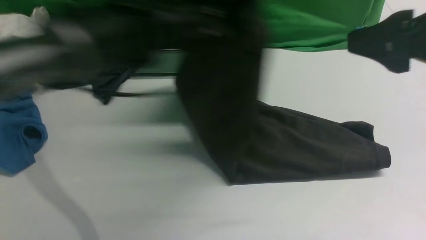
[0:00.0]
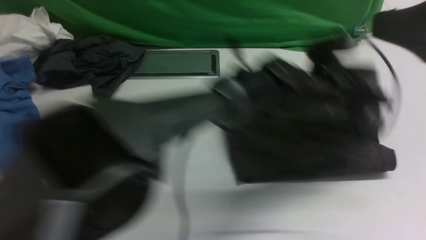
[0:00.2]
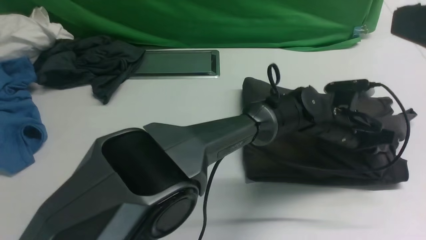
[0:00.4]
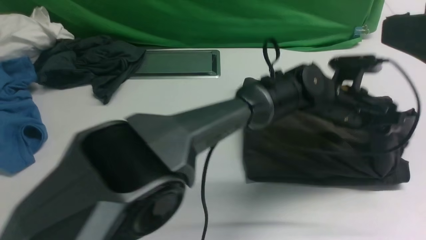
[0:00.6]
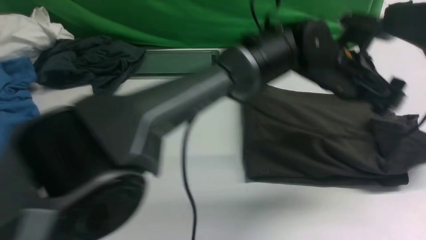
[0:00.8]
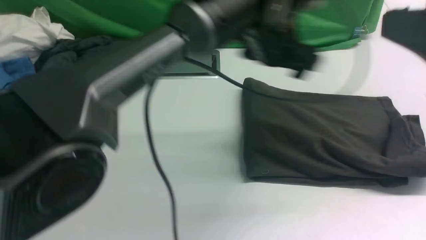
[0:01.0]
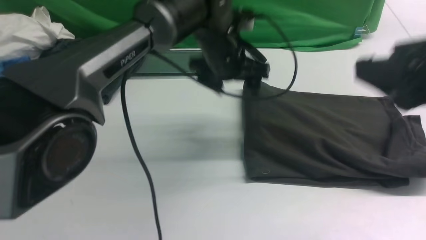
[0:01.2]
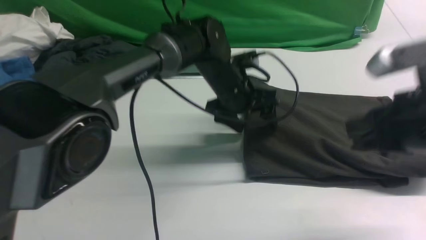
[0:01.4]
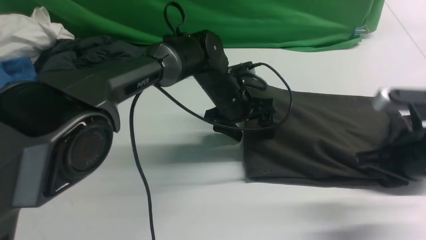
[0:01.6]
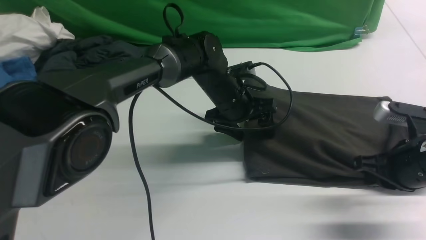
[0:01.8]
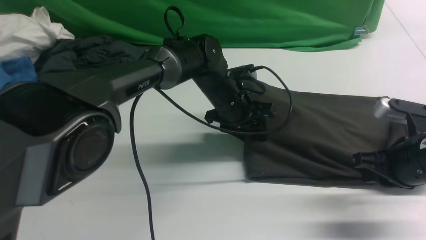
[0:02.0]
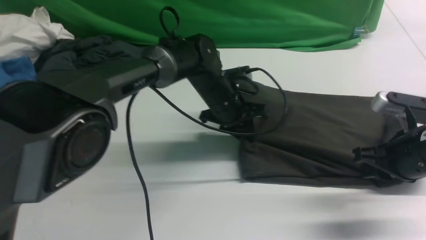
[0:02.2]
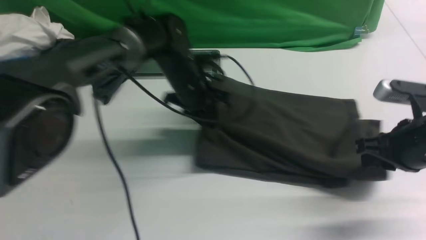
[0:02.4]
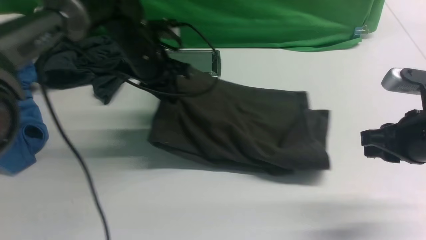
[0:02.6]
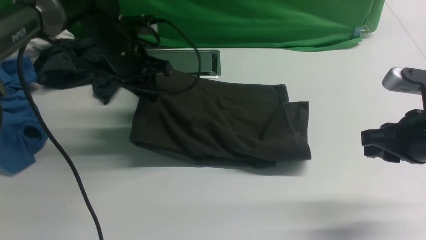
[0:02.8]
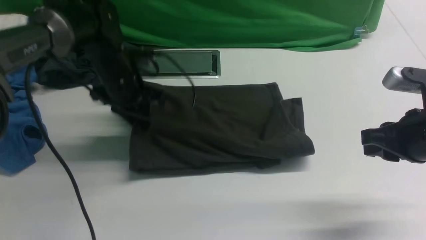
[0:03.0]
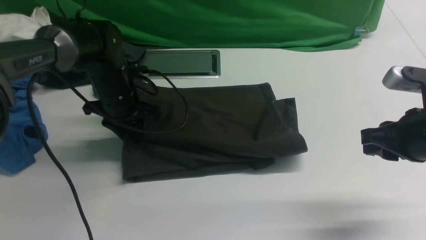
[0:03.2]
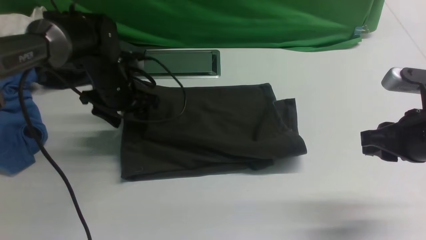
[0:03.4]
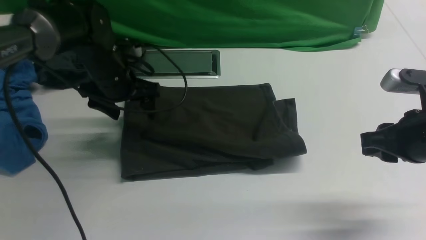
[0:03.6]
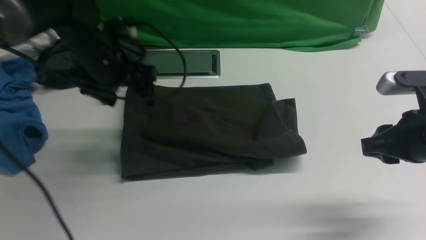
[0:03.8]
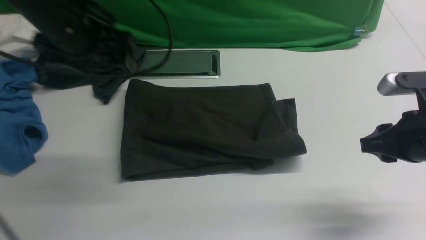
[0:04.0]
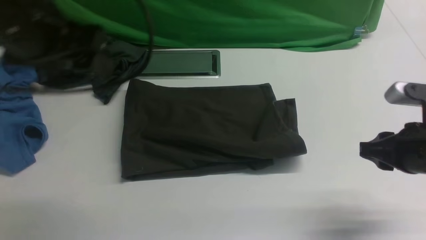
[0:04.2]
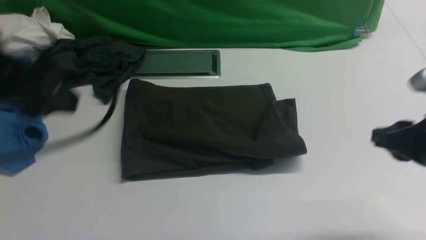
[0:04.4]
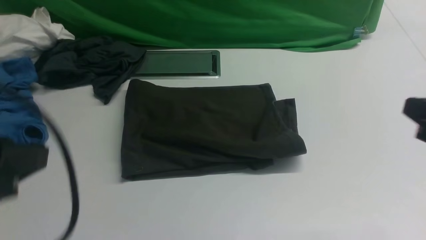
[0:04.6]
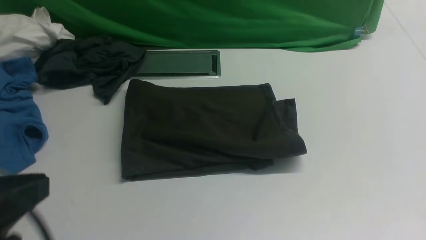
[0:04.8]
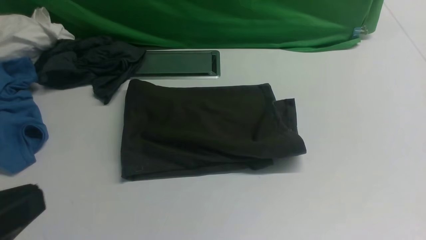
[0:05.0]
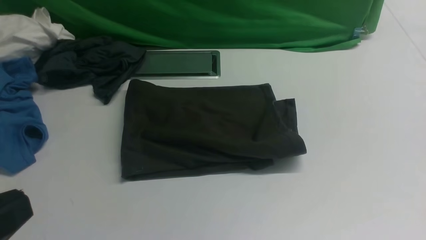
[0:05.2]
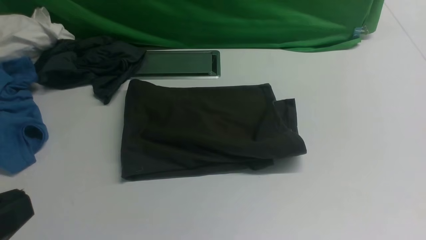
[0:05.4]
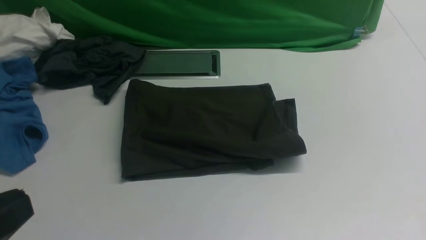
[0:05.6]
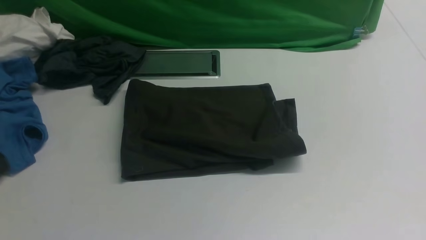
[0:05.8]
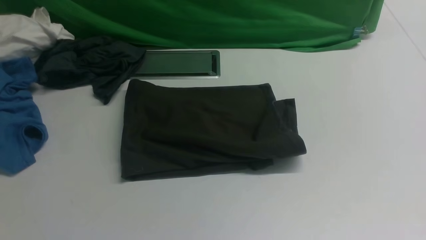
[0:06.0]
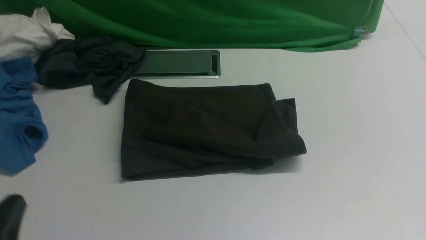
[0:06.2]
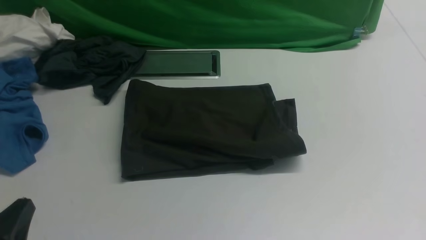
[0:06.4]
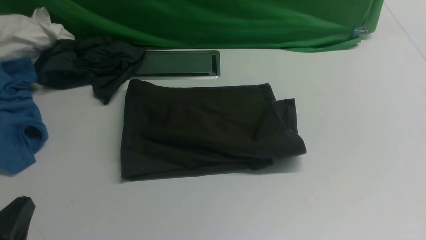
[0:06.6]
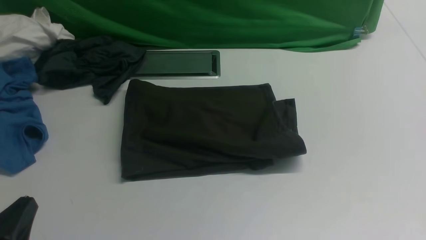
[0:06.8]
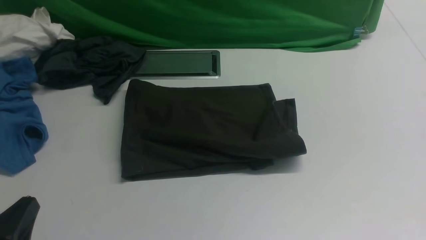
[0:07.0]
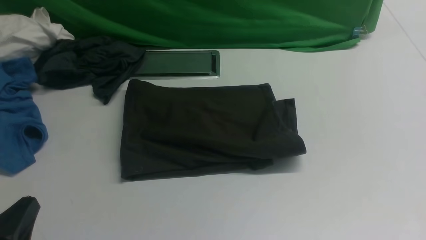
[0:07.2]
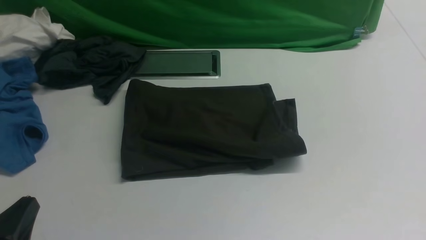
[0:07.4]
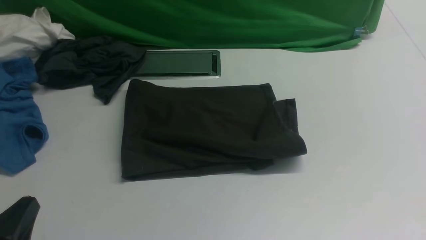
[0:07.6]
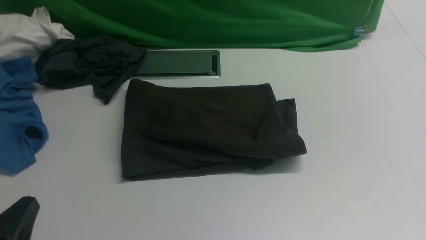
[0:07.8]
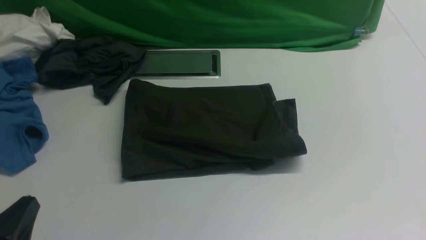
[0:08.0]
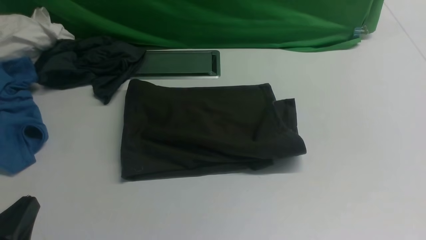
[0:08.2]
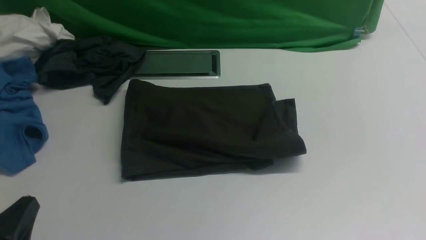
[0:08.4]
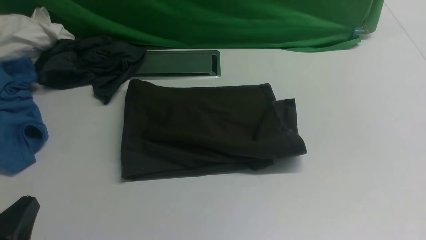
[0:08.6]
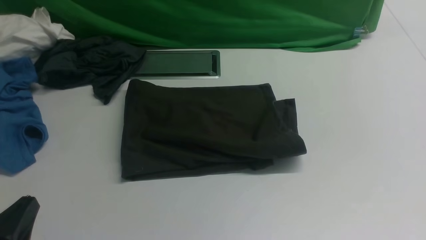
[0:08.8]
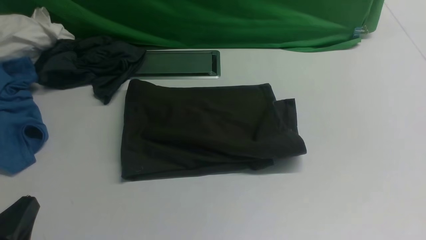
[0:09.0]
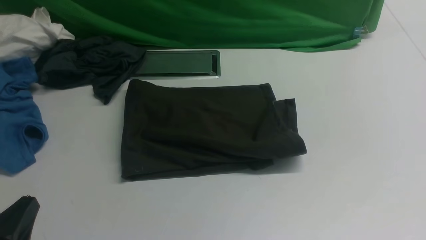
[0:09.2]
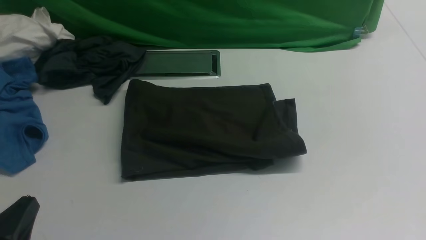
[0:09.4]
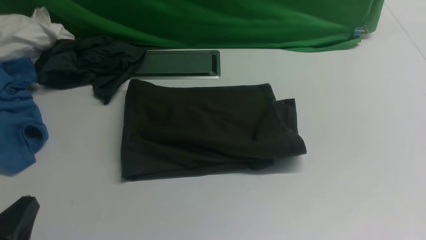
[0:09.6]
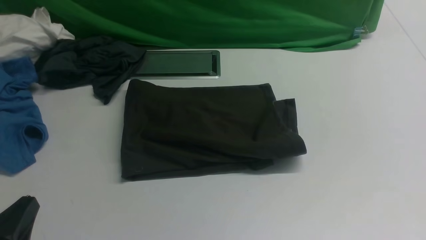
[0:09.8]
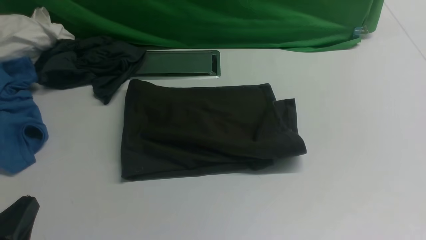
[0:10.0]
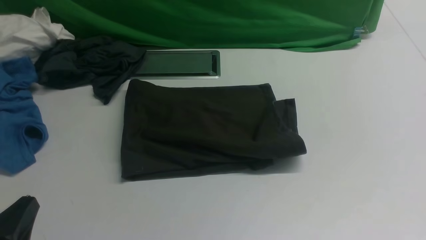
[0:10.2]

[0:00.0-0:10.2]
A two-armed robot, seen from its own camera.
Step, 0:00.0 to 0:00.8: Drag the left edge of the fabric to the left with your left arm and fold it to the right edge.
0:00.0 to 0:01.4: The two grippers go approximately 10 cm downward. The right gripper closes. The left gripper travels to the right and back again, some 15 cm each way, and opens up.
0:01.4 to 0:03.0: The left gripper is displaced to the left by approximately 20 cm, and closes its fingers.
0:03.0 to 0:04.4: The left gripper shifts roughly 30 cm backward and upward, and opens up.
0:04.4 to 0:05.8: The right gripper goes some 20 cm backward and upward. The left gripper is displaced backward and downward by approximately 15 cm, and closes.
0:05.8 to 0:07.2: The left gripper moves downward, some 15 cm.

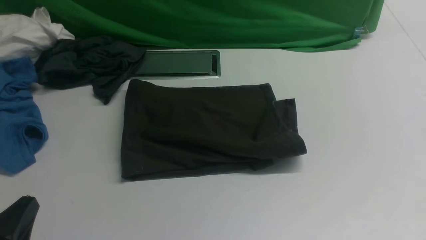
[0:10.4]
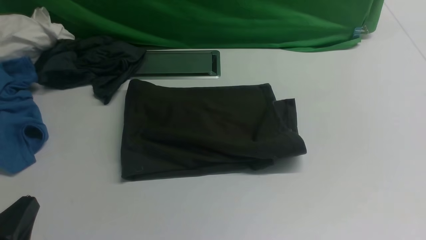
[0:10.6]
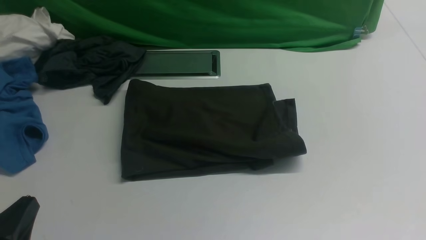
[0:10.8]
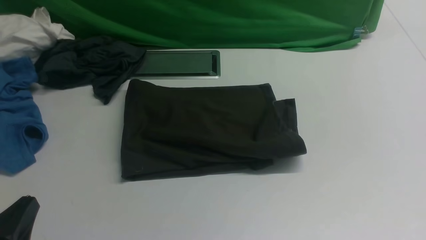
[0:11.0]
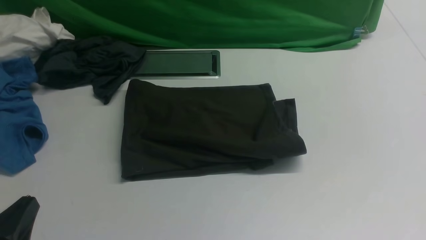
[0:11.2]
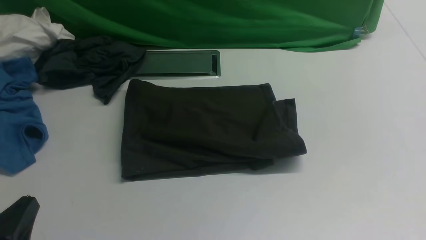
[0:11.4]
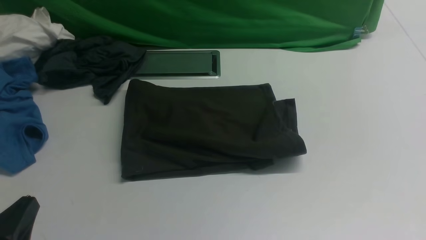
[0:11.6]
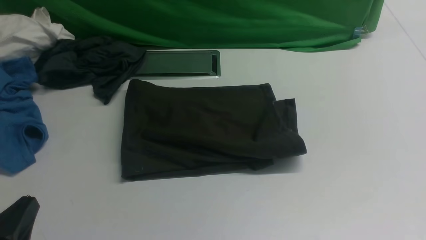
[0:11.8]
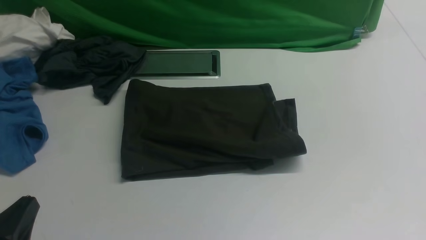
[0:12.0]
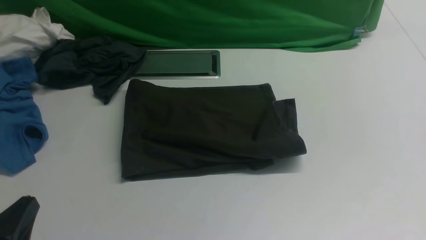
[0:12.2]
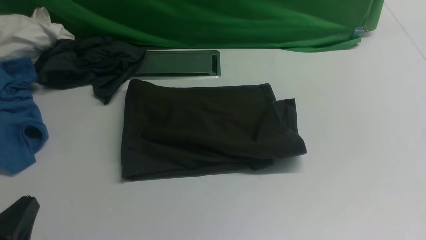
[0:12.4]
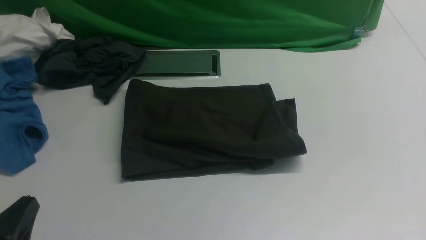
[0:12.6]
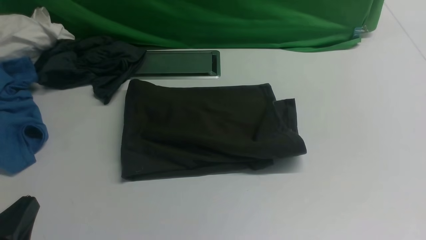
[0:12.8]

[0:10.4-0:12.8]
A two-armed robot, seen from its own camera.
0:10.4 to 0:12.8: The two grippers keep their place.

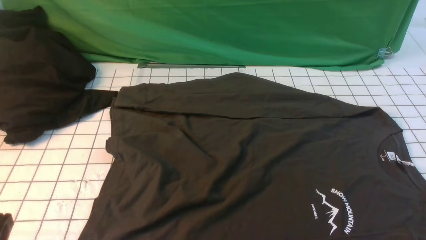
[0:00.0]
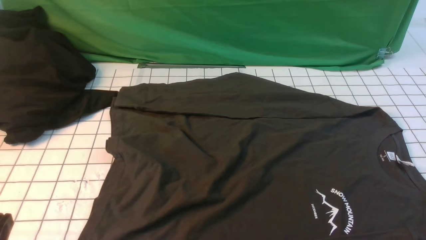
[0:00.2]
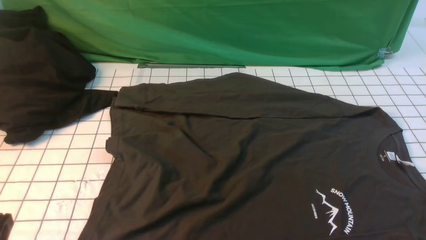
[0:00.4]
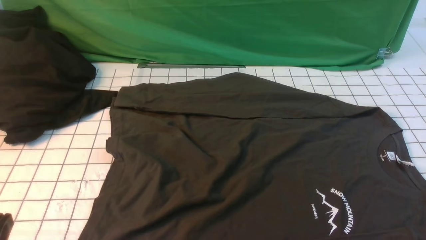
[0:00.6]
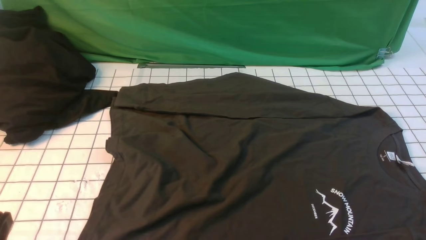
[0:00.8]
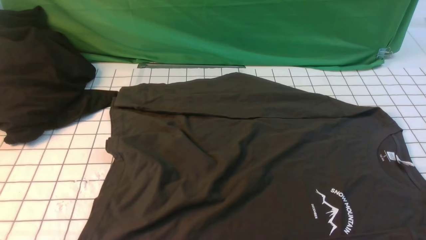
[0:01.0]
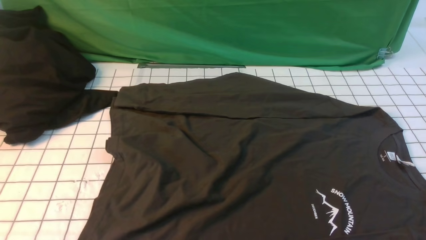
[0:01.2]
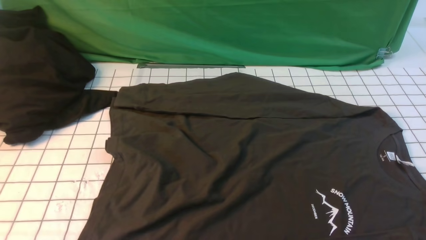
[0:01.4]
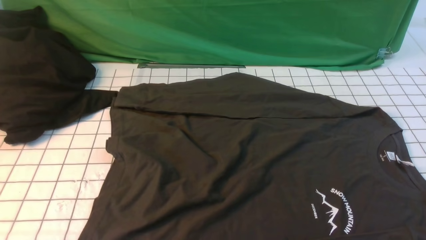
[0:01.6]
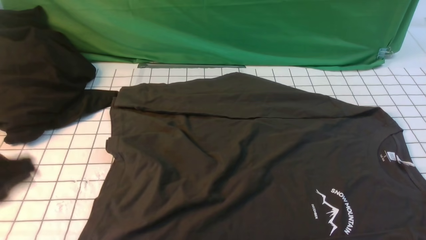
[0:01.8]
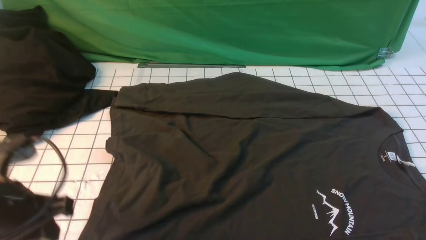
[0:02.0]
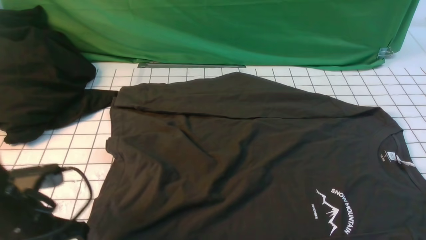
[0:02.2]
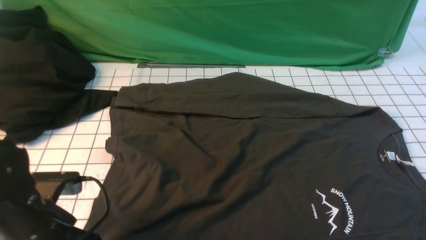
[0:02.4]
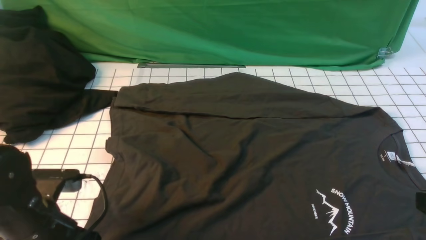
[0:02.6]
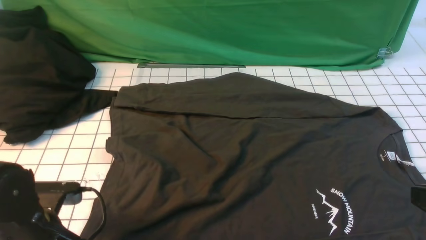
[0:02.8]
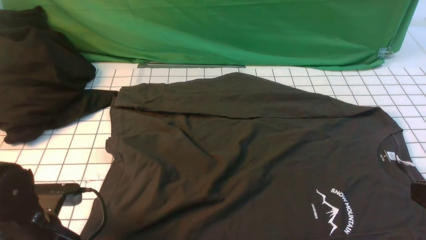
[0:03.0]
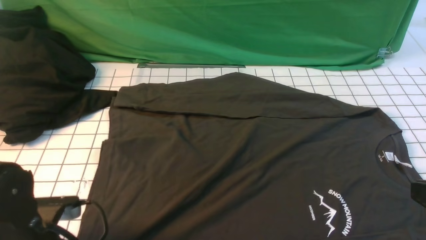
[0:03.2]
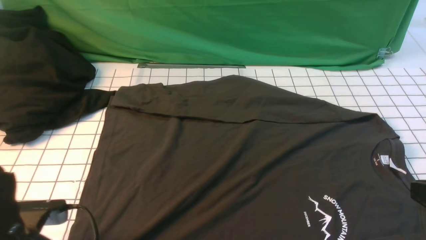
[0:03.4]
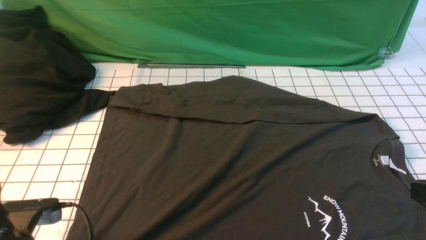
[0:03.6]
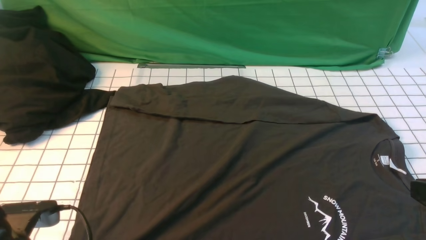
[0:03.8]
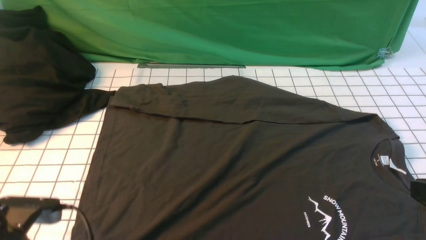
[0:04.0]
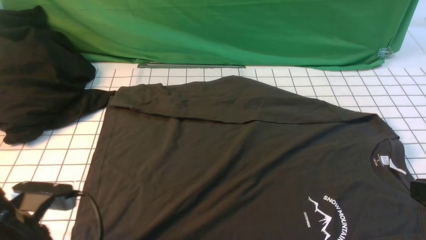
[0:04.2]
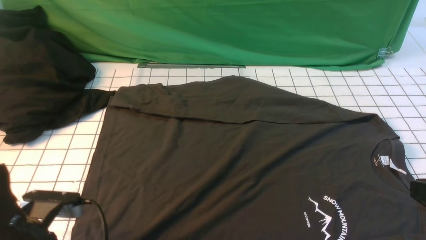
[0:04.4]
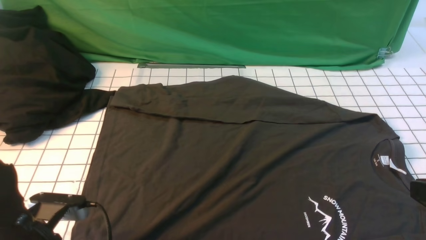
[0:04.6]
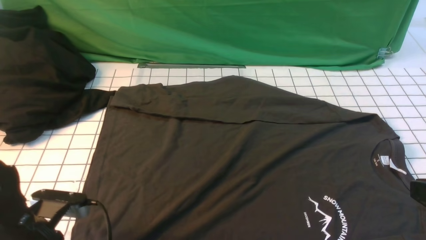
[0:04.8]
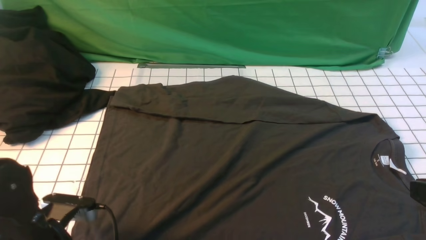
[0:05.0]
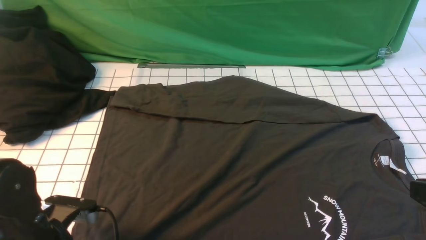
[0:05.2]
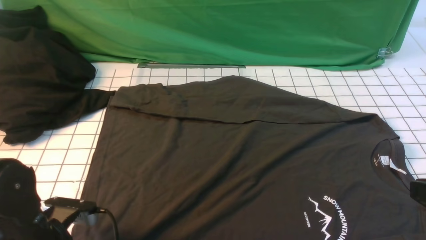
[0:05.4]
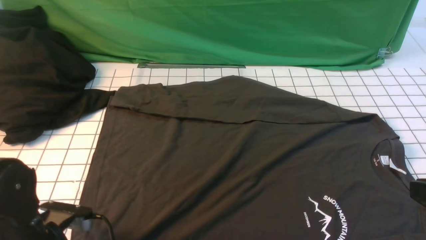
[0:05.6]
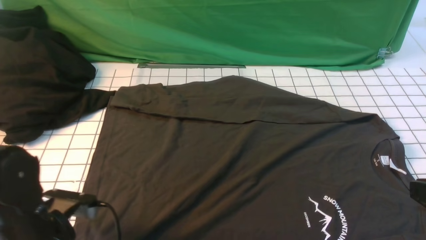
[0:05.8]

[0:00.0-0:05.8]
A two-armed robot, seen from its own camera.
0:01.4 to 0:02.8: The left gripper goes approximately 20 cm forward and downward, and opens.
0:02.8 to 0:04.4: The left gripper closes and opens again.
0:04.4 to 0:05.8: The grippers move only a little.
